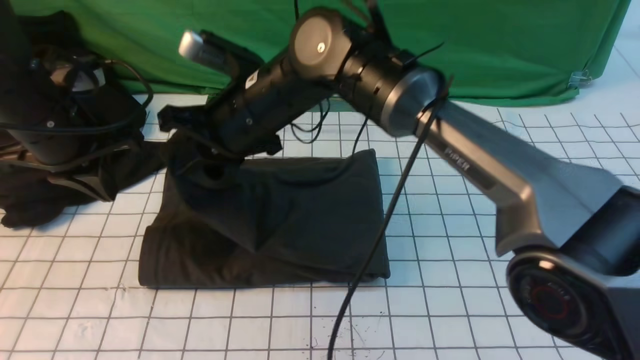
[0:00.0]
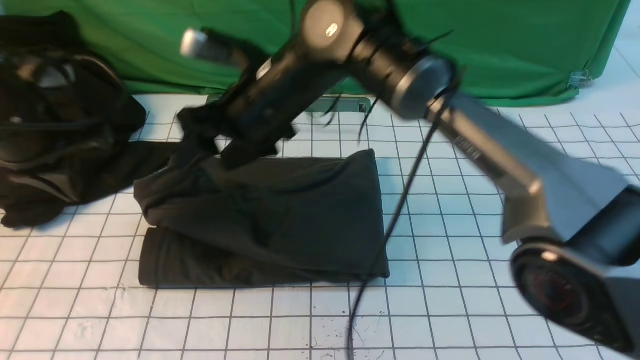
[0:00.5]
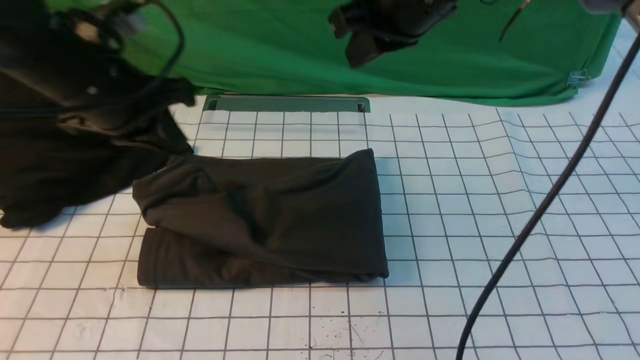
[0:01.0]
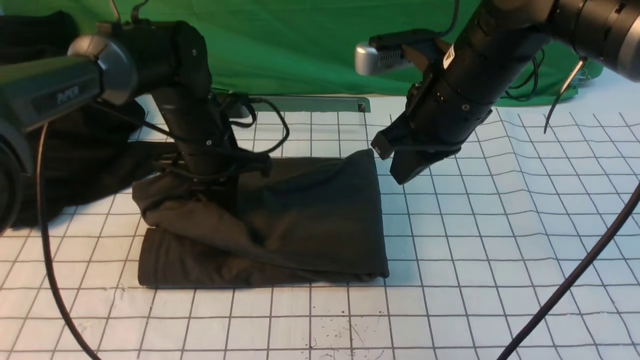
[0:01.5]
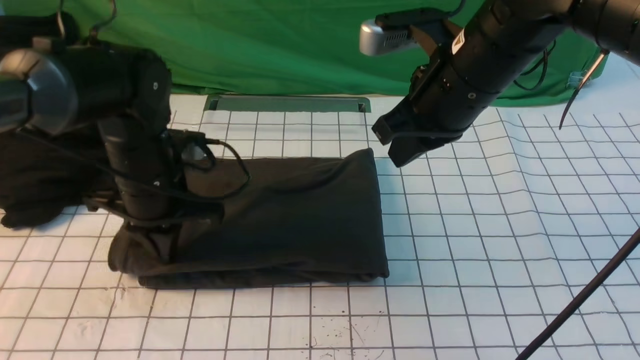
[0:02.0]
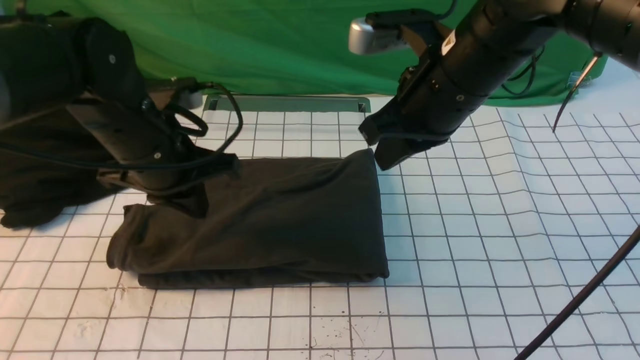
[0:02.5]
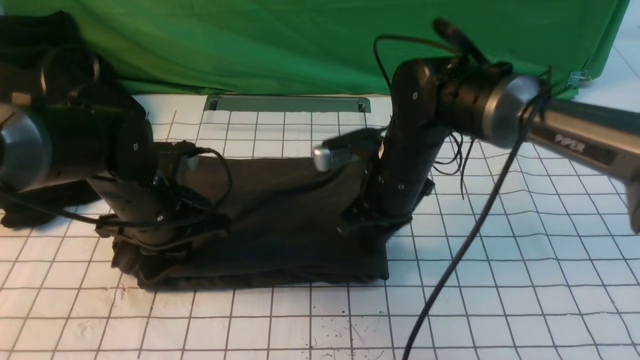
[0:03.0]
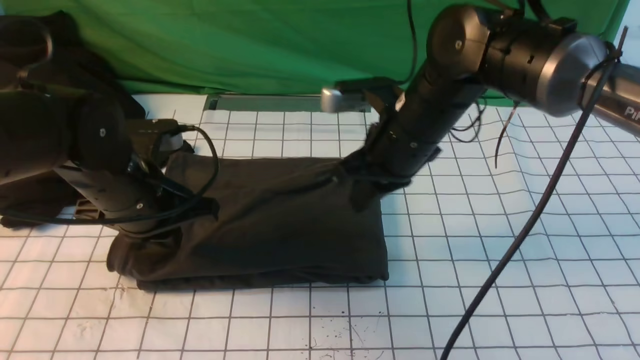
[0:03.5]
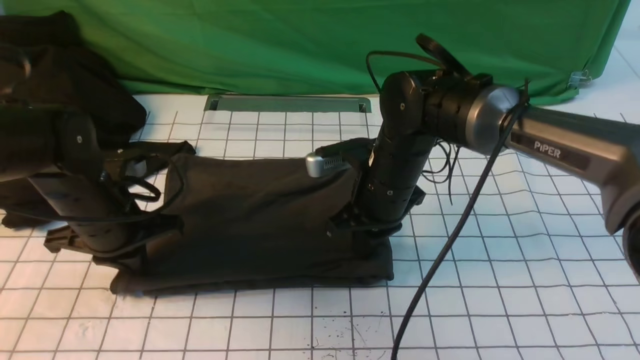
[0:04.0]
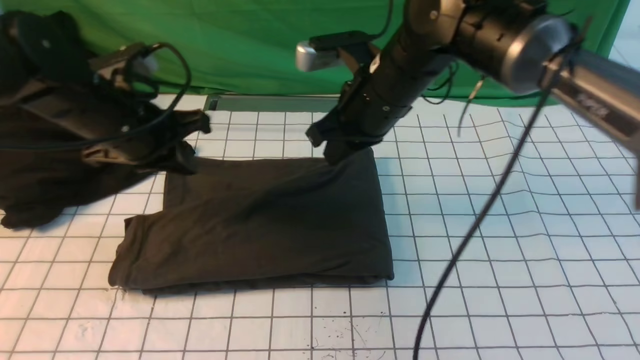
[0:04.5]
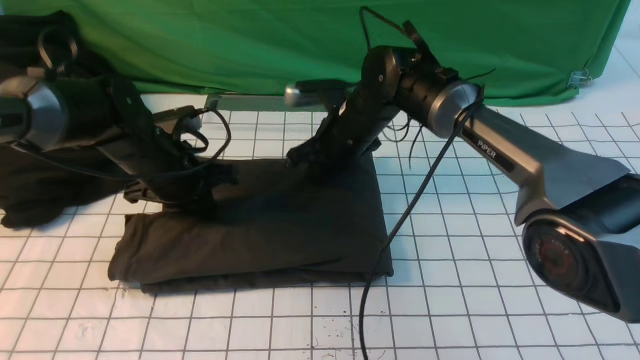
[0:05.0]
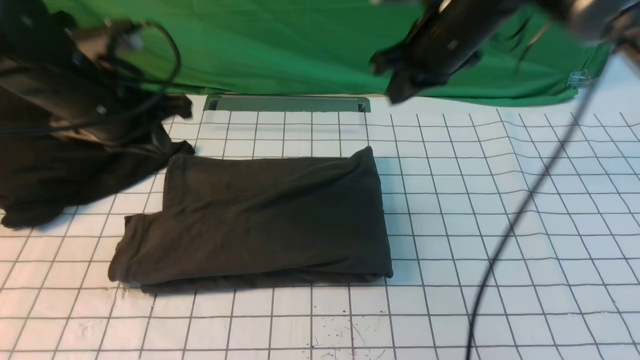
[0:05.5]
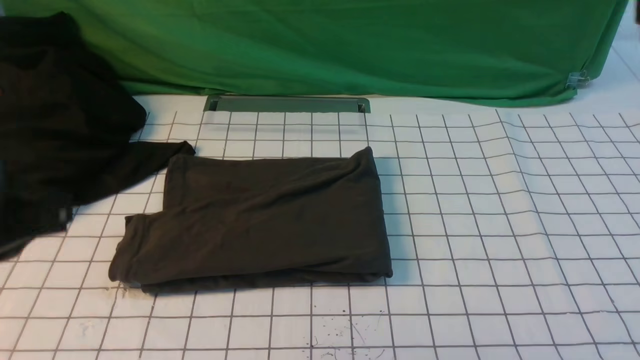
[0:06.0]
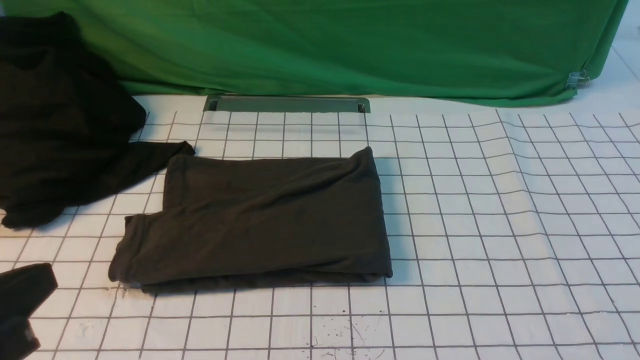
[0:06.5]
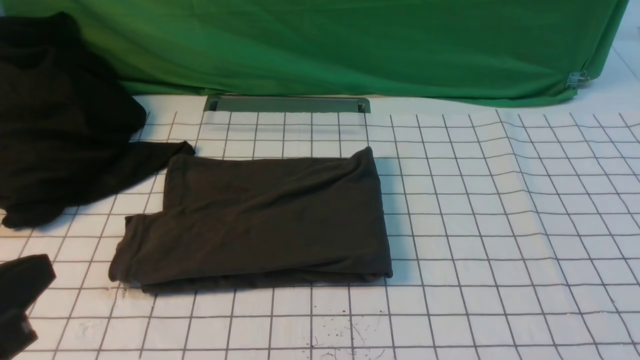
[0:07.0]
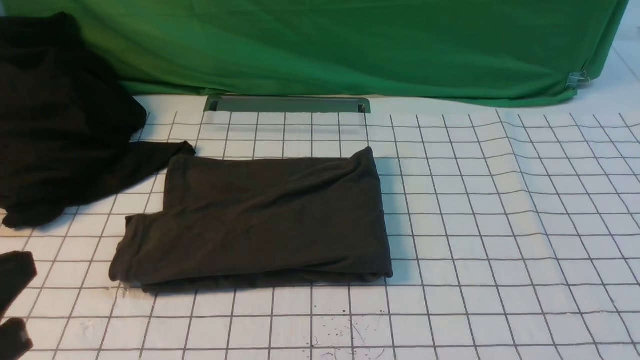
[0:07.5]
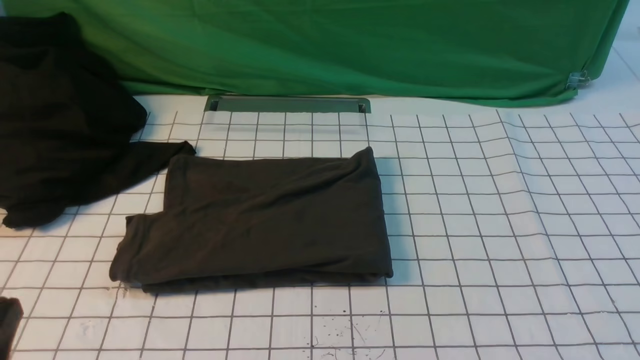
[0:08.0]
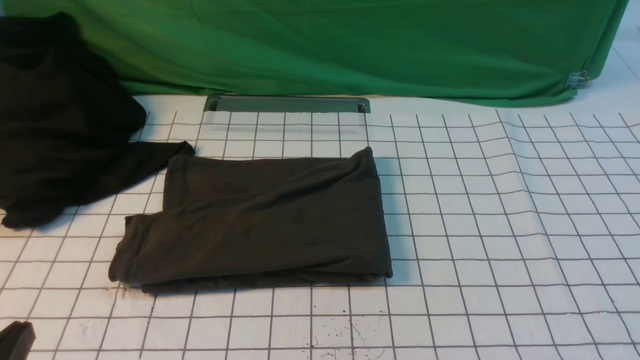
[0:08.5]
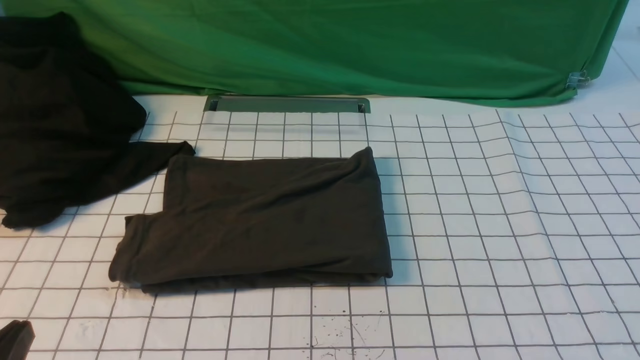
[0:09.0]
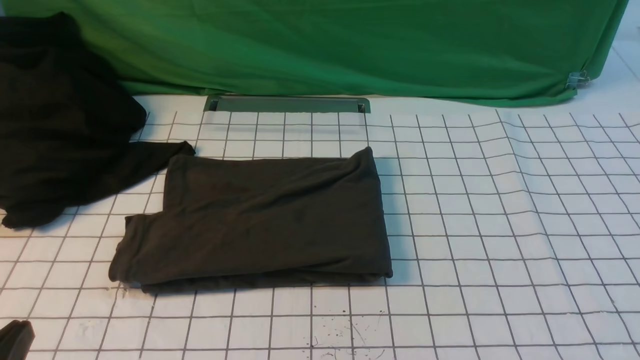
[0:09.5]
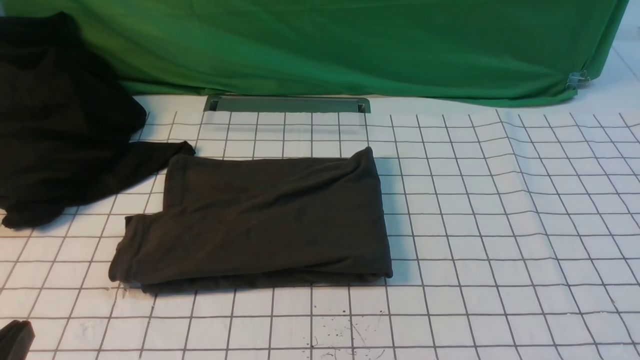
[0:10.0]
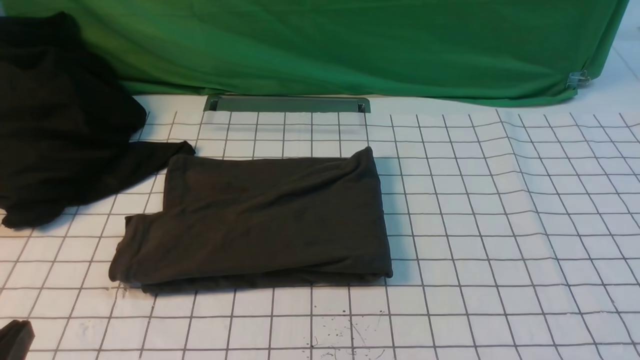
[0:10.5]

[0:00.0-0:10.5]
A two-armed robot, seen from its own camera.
0:00.0 to 0:02.0: The left gripper moves to the right and downward, about 10 cm, while the right gripper moves to the right, roughly 20 cm, and opens, then closes once more.
0:02.0 to 0:04.0: The right gripper goes some 15 cm downward. Meanwhile the left gripper heads to the left, covering some 5 cm.
0:04.0 to 0:06.5: The left gripper travels backward and upward by approximately 25 cm. The right gripper moves backward, to the right and upward, about 40 cm.
0:06.5 to 0:08.5: The left gripper goes some 10 cm downward.

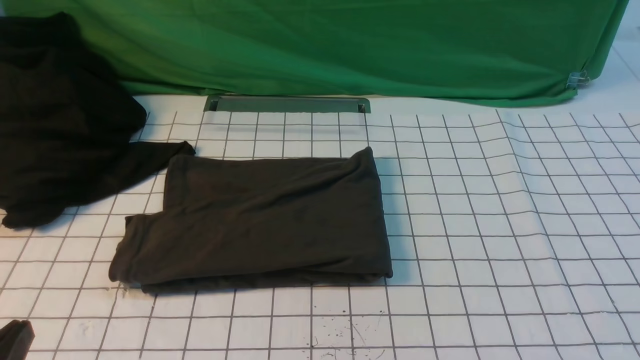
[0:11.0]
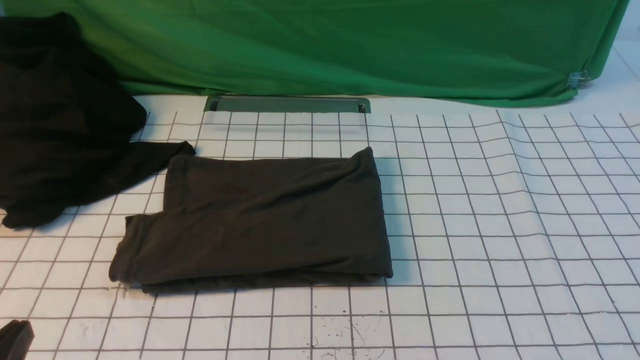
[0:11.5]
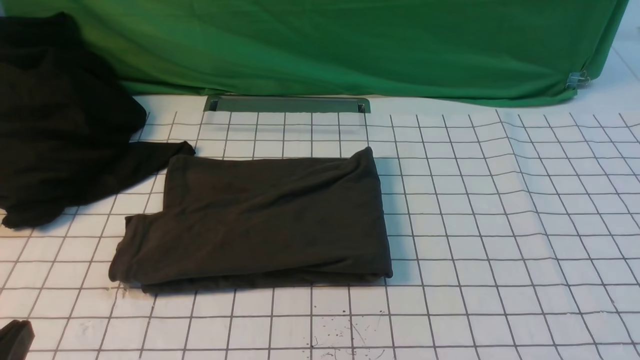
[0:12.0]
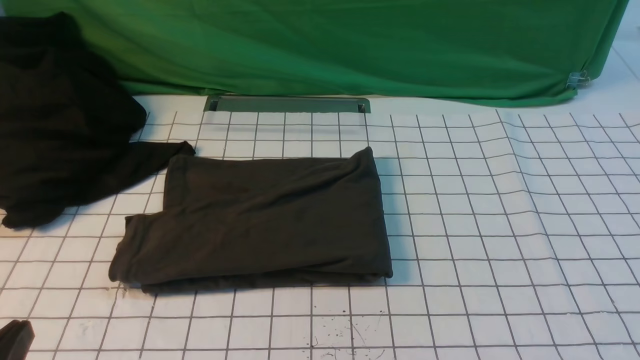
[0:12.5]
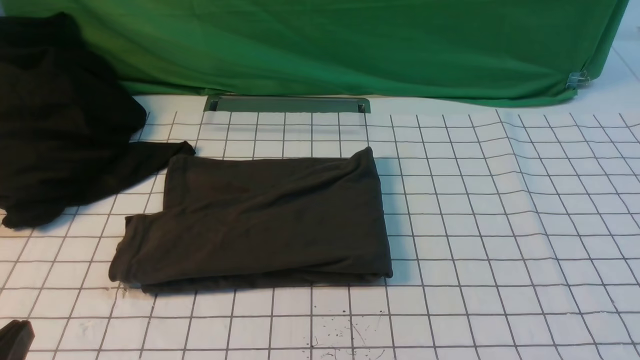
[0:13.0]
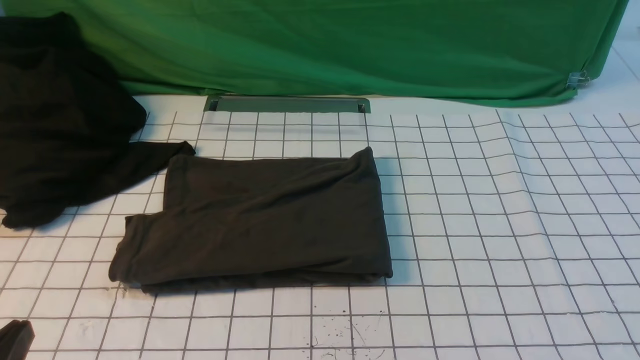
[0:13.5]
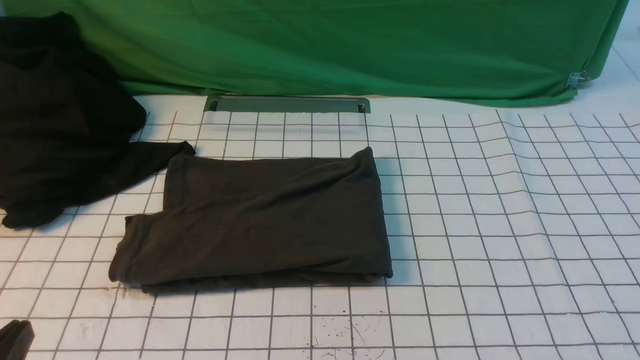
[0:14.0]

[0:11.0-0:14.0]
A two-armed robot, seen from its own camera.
0:11.0 to 0:14.0: Both grippers stay about where they are.
